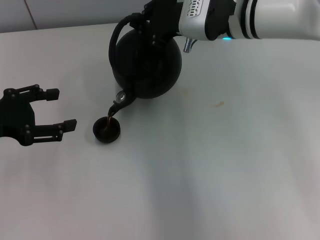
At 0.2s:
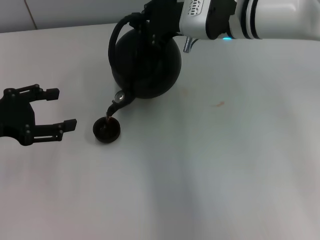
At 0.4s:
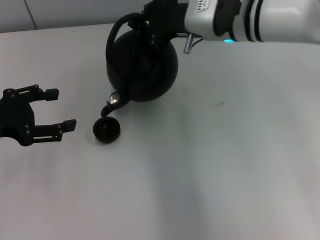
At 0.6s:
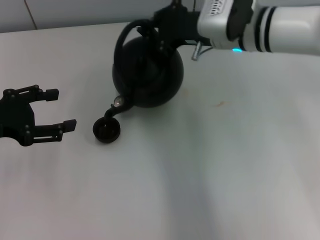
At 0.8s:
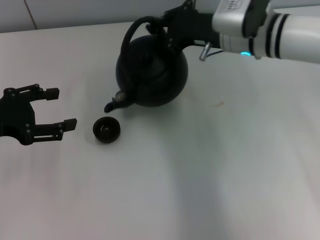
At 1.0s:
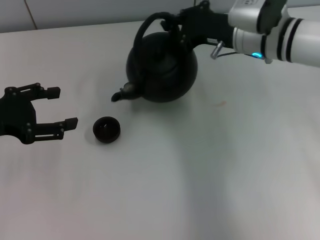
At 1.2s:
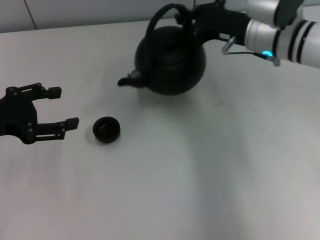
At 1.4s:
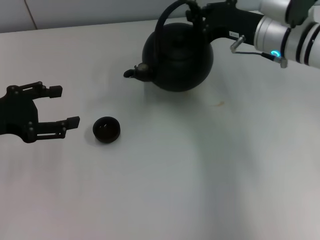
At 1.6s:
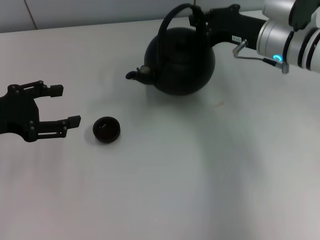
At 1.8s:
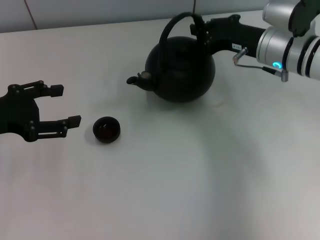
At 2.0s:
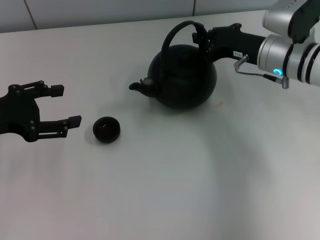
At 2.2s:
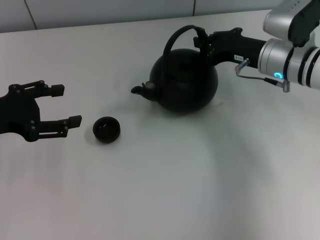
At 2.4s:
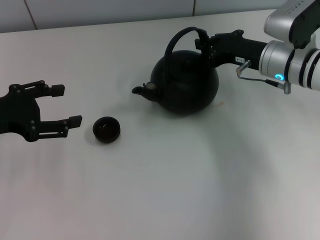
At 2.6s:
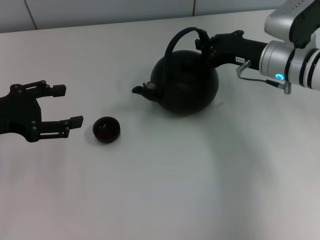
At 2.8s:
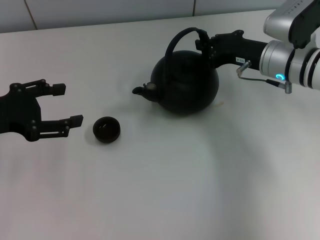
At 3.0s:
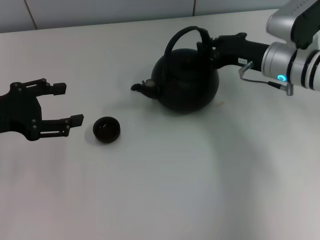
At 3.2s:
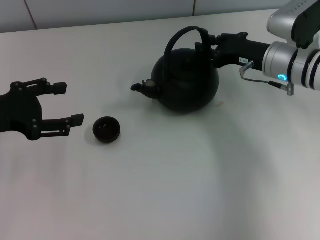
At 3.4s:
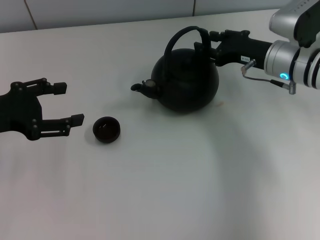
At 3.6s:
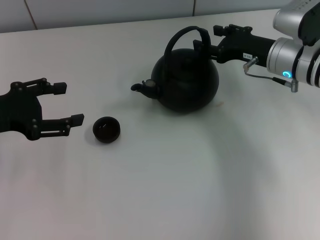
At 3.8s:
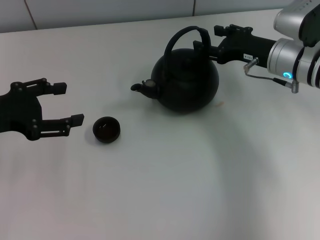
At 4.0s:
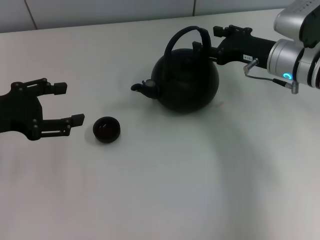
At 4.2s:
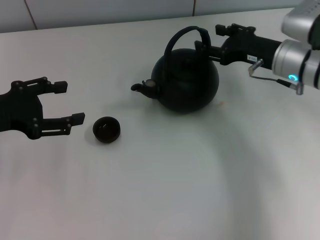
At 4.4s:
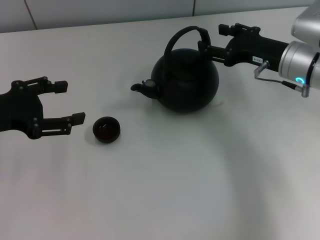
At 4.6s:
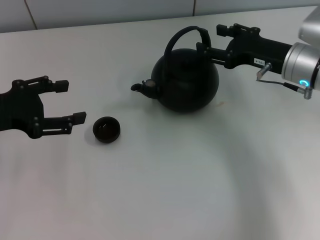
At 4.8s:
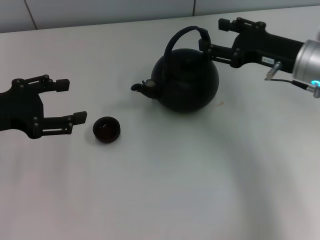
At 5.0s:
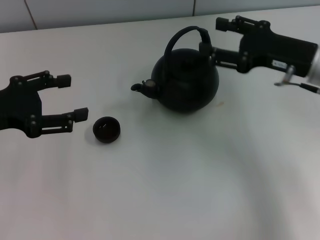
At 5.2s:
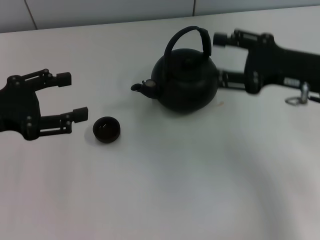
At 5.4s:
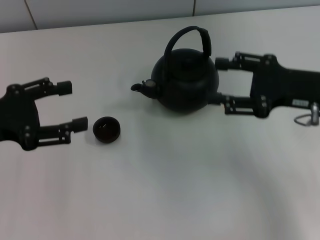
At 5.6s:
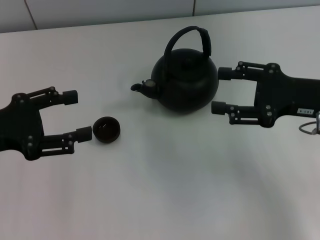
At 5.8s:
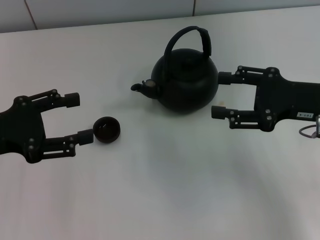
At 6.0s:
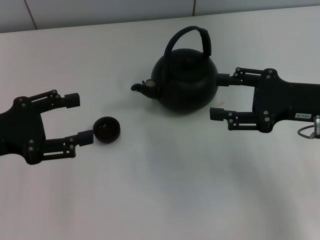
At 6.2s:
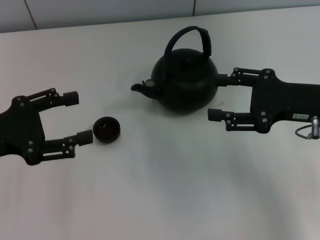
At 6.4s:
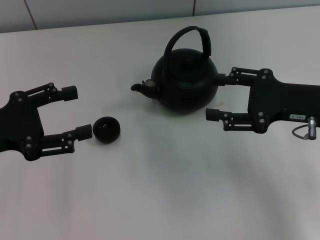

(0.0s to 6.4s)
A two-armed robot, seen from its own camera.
Task of the whole recording: Grasp the handle of the teapot with one hand and pour tea into the teacup.
Step, 1.2s - 5.0s: Put down the teapot with the right gripper.
0.0s - 1.6s: The right gripper moves to the right, some 10 cm.
1.6s - 3.2s: The grippers move only a little.
3.2s - 4.8s: The right gripper moves roughly 5 cm, and opens up.
4.8s - 6.4s: The right gripper heads backward, covering roughly 5 cm.

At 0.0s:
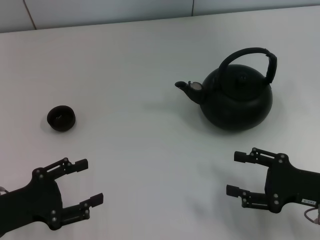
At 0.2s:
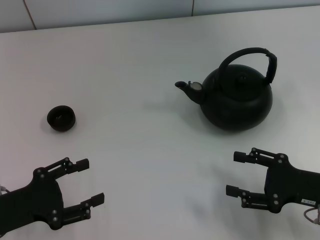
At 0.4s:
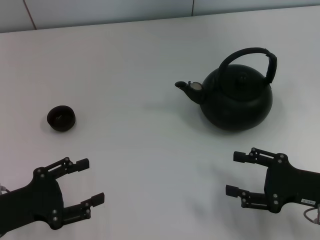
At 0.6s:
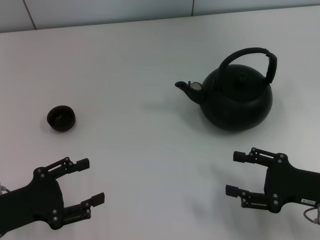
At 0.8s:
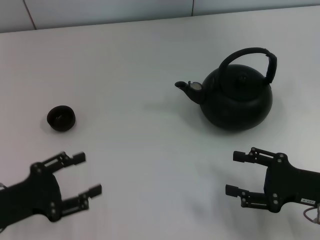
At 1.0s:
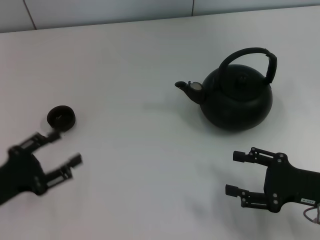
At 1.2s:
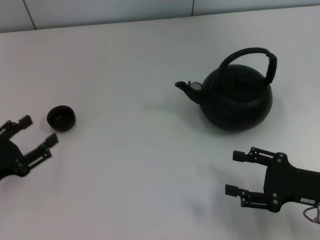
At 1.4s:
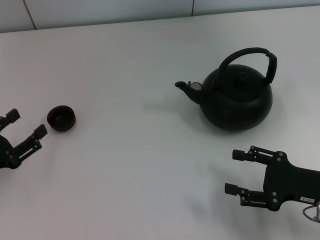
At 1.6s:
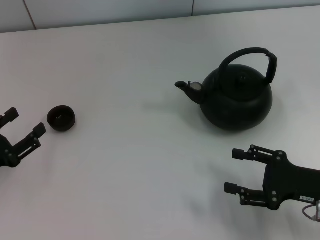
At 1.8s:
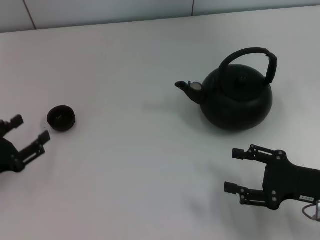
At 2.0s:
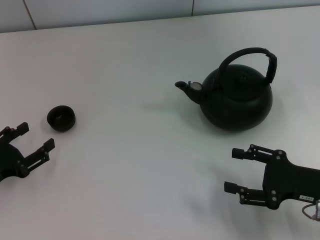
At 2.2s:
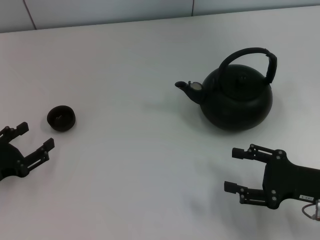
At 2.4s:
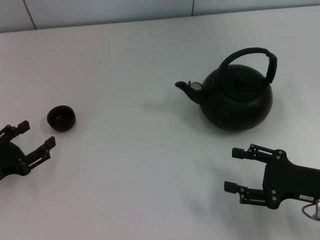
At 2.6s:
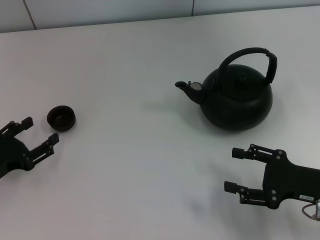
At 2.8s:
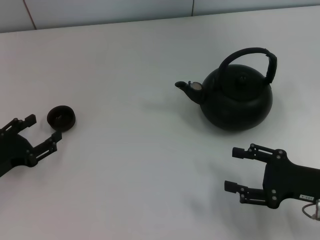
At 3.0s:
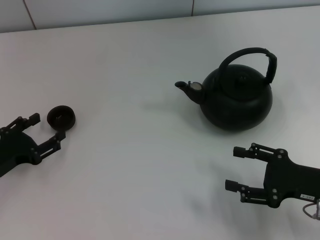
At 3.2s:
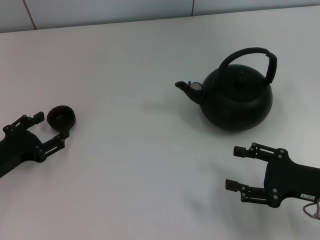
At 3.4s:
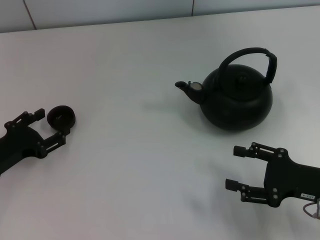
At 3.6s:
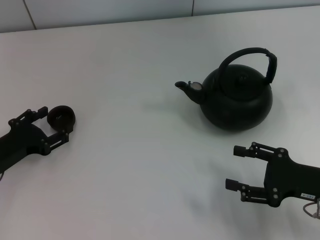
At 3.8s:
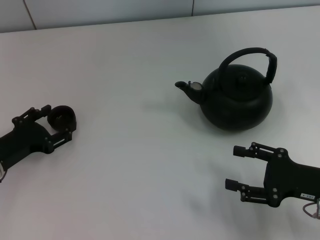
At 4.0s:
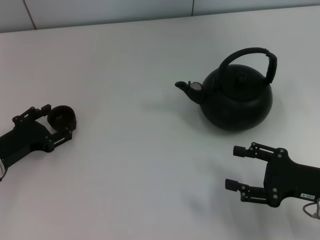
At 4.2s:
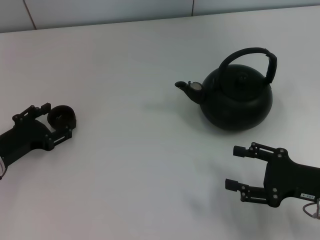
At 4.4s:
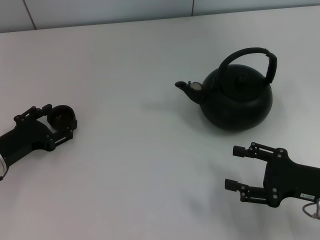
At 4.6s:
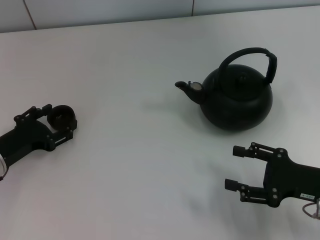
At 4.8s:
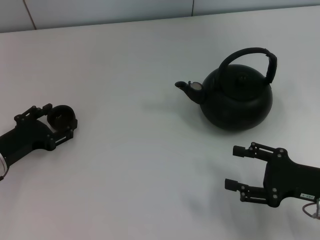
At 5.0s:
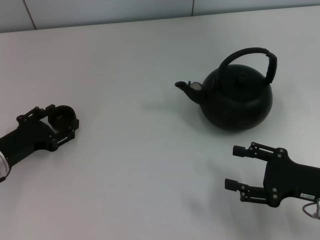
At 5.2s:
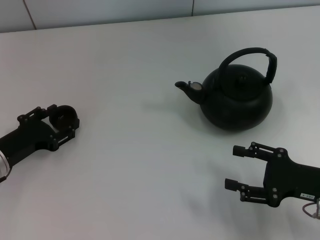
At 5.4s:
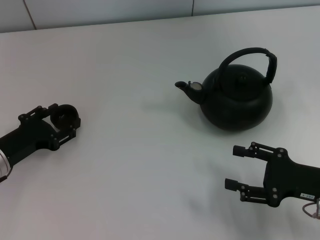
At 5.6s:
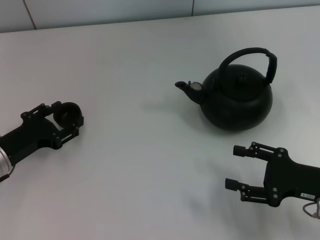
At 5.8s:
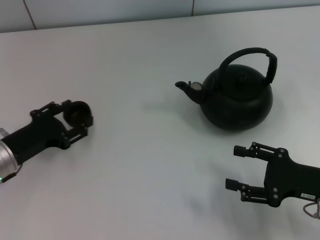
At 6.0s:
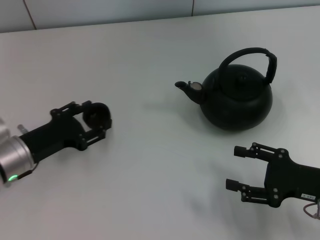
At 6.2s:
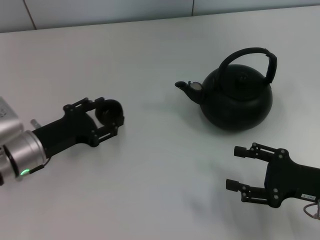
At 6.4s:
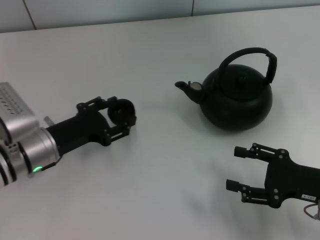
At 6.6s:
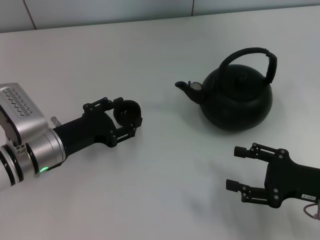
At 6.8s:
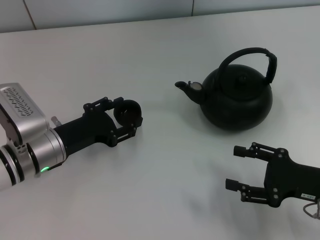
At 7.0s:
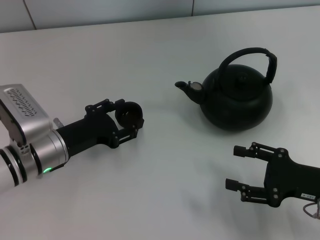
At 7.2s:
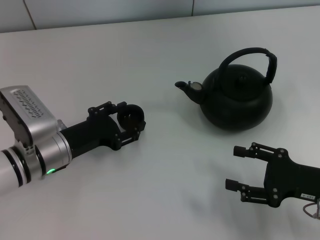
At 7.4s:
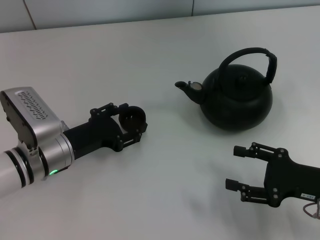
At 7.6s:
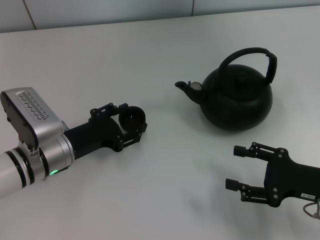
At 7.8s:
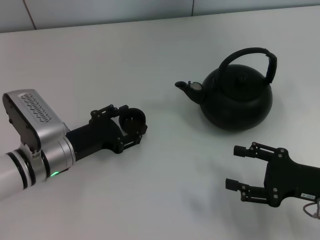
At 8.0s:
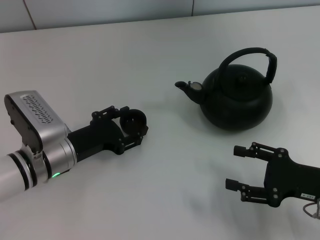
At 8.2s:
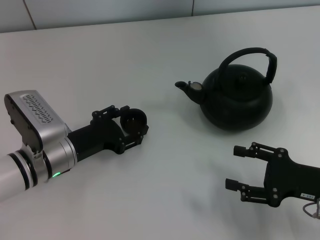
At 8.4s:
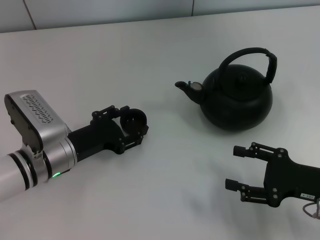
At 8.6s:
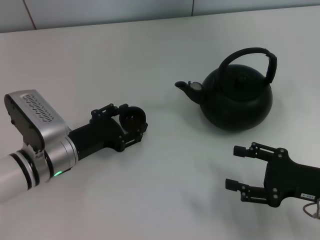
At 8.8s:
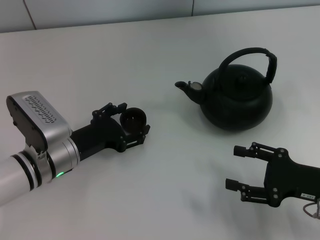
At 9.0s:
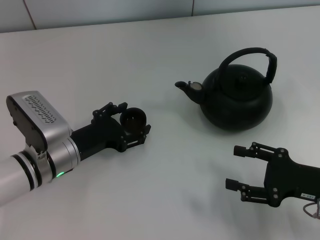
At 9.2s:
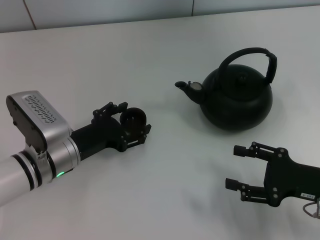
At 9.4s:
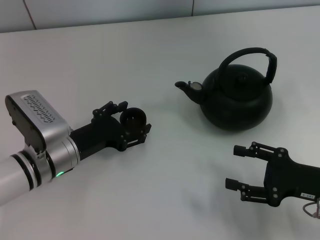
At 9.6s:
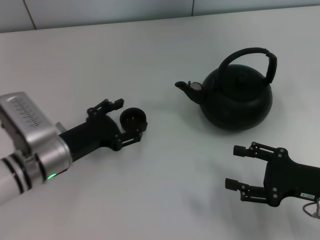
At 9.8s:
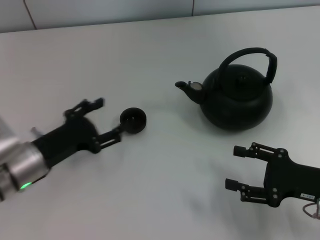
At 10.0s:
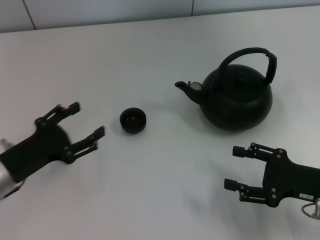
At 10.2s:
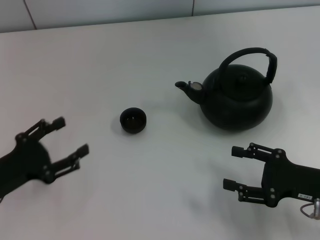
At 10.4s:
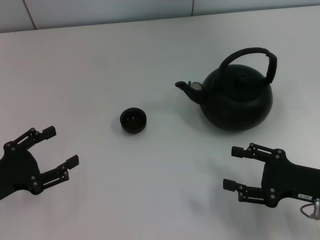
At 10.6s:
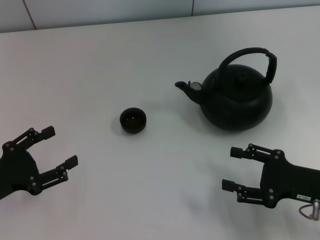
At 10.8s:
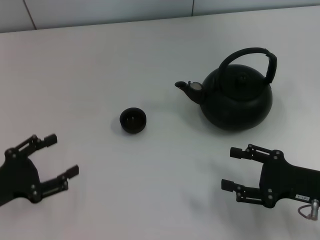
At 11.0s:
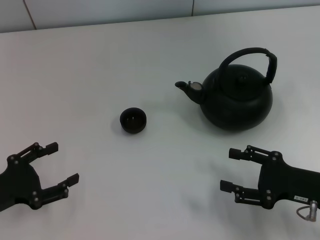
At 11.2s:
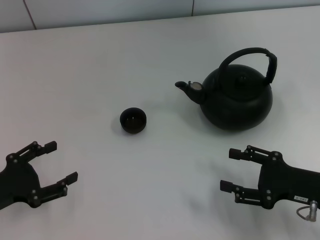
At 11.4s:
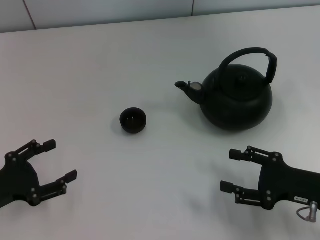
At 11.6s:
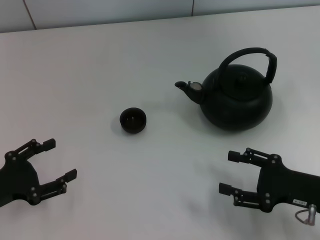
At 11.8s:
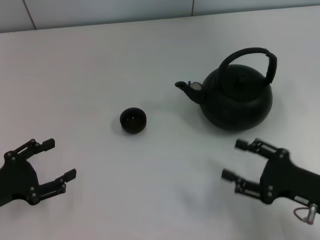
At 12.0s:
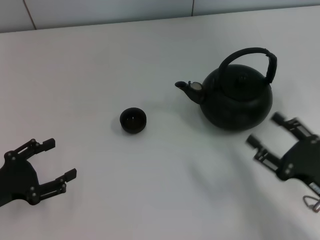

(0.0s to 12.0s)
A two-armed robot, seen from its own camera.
Task of the whole recording: Grasp the handle of the teapot with one hand and pour tea into the teacup.
Step, 0.0s - 5.8s: Pick up the teacup with the left gripper.
Step, 6.0s - 9.6s: Place the teacup in the center of view with the left gripper.
1.6s - 3.0s: The grippers stay close to where they were, moving slightly.
3.0s - 4.4s: The grippers move only a little.
4.4s - 6.0s: The left gripper closes its fingers.
6.0s - 7.6s: The left gripper shifts roughly 5 cm to the right, and opens.
7.6s - 9.0s: The left gripper opens.
9.0s - 10.4s: The left gripper goes approximately 15 cm to the left and backward.
10.4s - 12.0s: The right gripper changes place by some 5 cm.

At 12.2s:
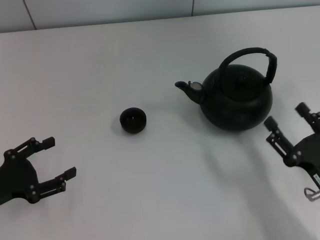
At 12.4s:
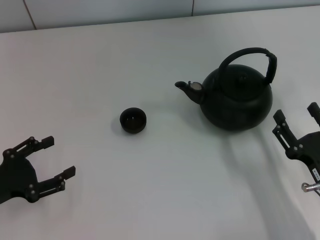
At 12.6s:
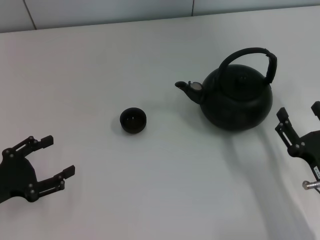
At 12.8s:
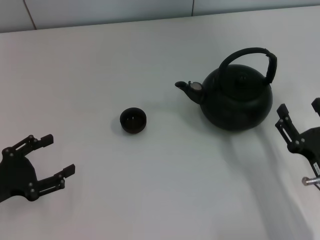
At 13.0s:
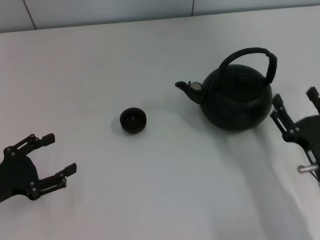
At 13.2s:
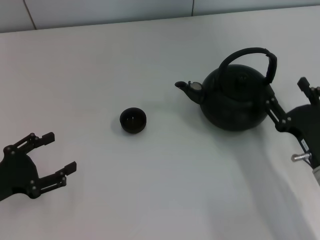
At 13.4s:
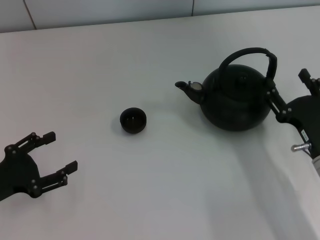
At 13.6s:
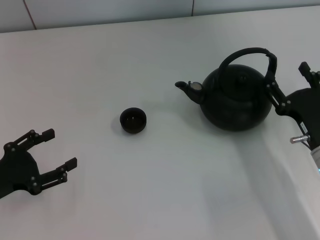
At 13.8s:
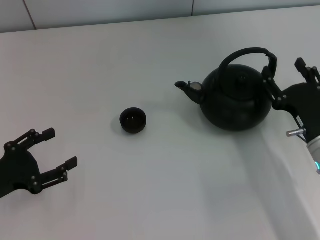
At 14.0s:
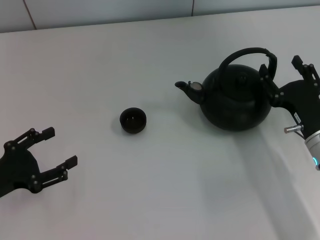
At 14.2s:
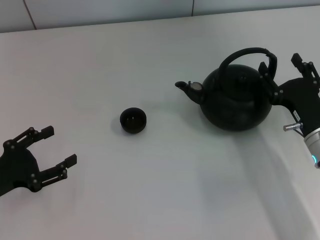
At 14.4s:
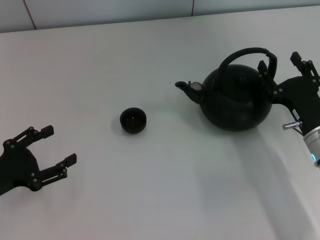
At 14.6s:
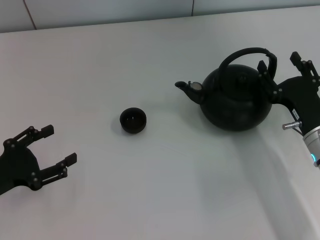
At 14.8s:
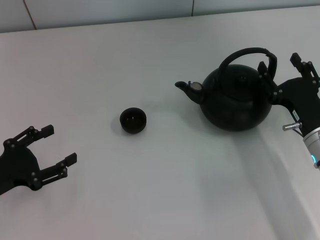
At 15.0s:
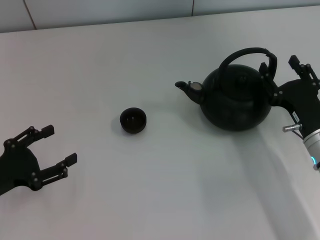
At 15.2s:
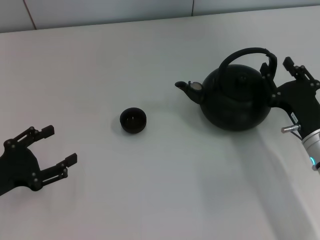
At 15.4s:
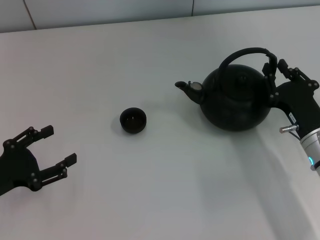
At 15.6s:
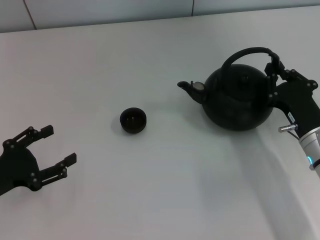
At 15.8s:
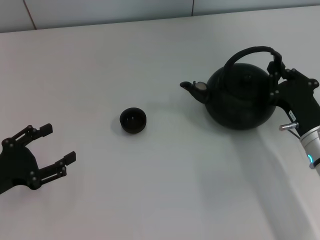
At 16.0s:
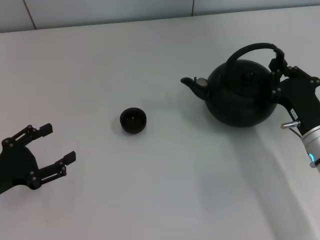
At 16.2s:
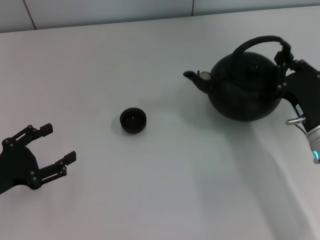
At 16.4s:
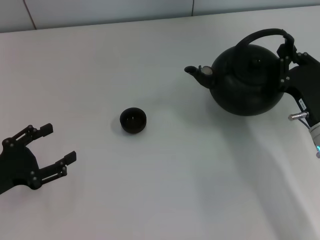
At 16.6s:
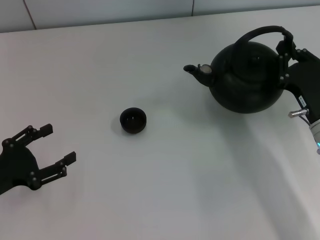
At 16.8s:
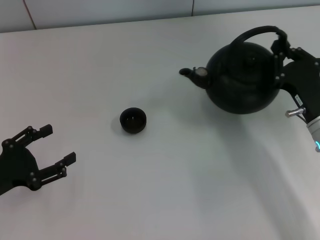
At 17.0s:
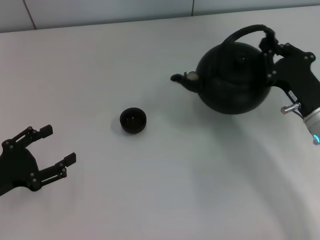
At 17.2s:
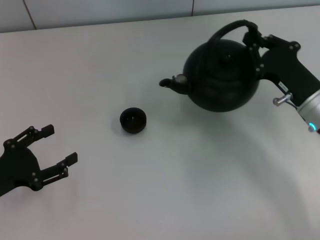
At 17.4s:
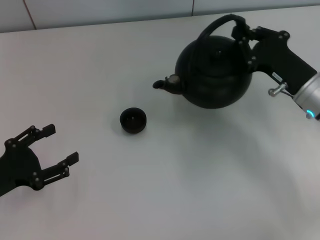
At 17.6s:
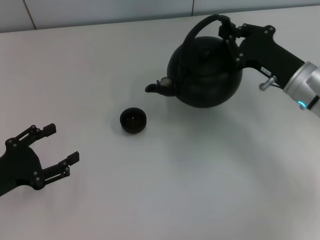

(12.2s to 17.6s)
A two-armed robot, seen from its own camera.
Task of the whole recording: Grasp the handle of the teapot with one hand and pour tea into the teacup.
Step, 12.2s - 16.4s: Pick up the teapot with the right gripper.
12.2s - 13.6s: The right gripper shifts some 10 cm forward.
13.6s - 15.0s: The grippers make only small movements.
15.0s - 16.2s: The right gripper closes its fingers.
16.2s - 17.6s: The right gripper travels forward by some 10 cm.
